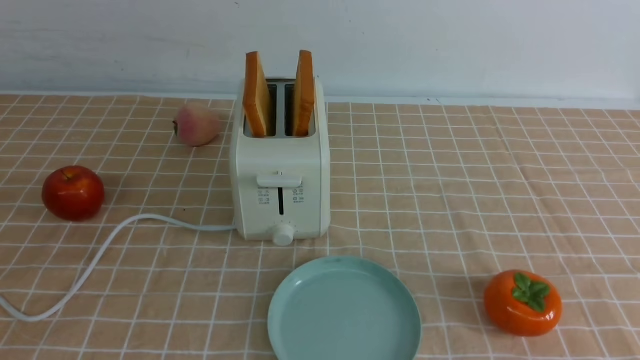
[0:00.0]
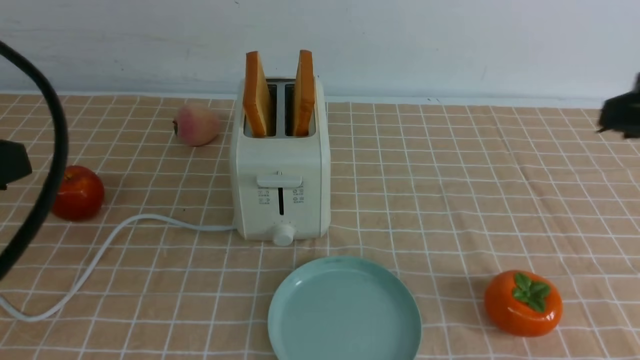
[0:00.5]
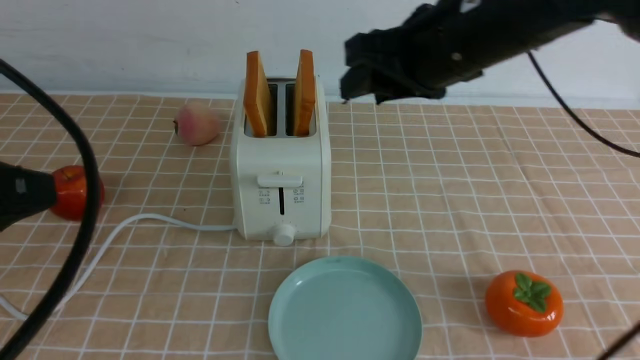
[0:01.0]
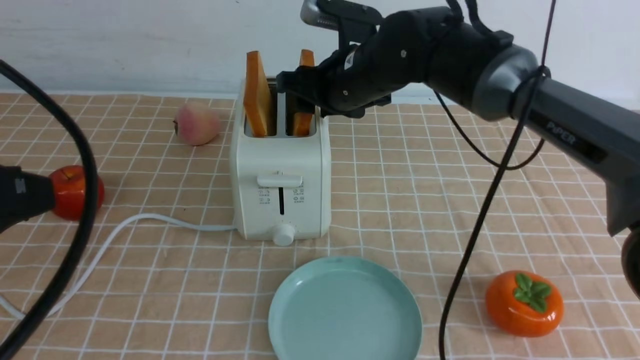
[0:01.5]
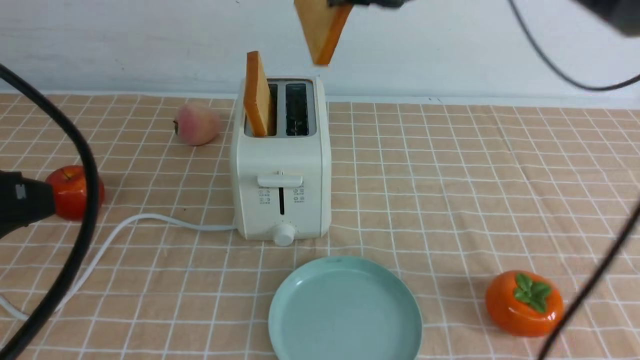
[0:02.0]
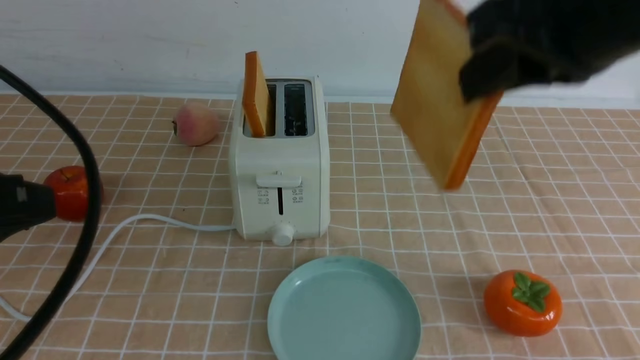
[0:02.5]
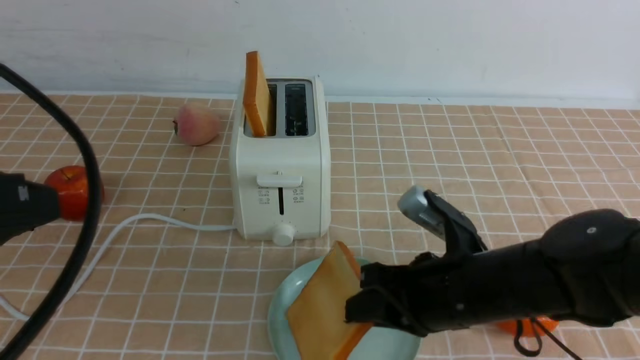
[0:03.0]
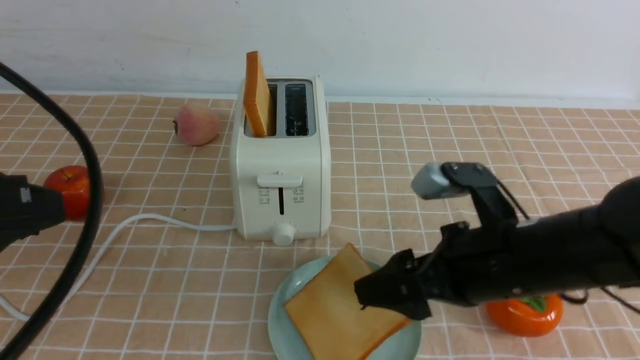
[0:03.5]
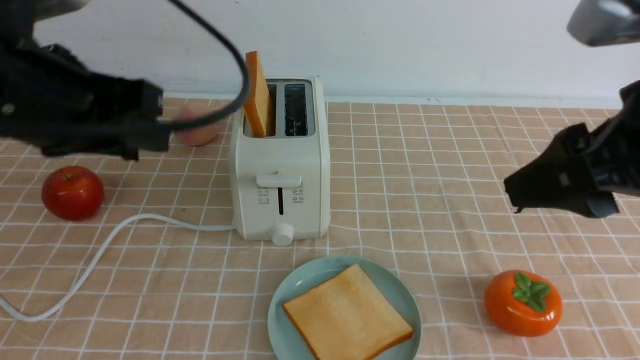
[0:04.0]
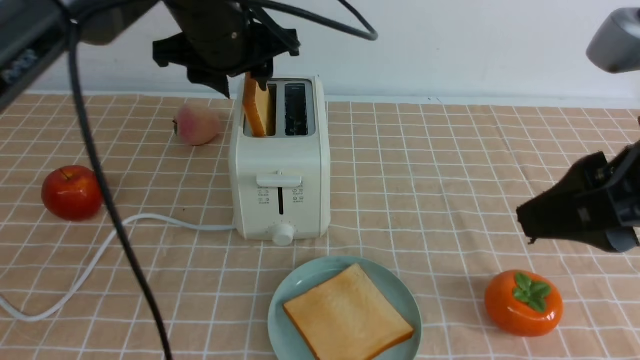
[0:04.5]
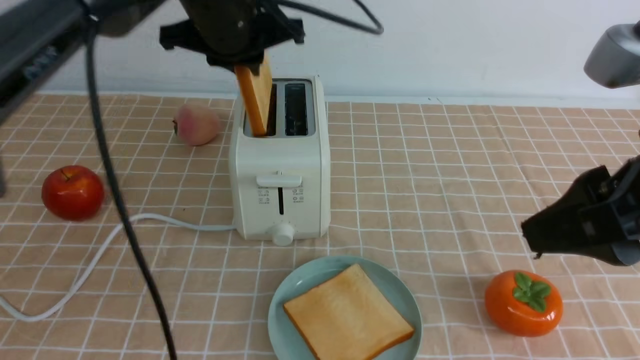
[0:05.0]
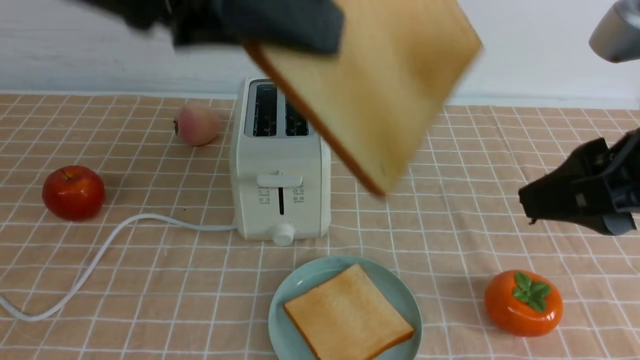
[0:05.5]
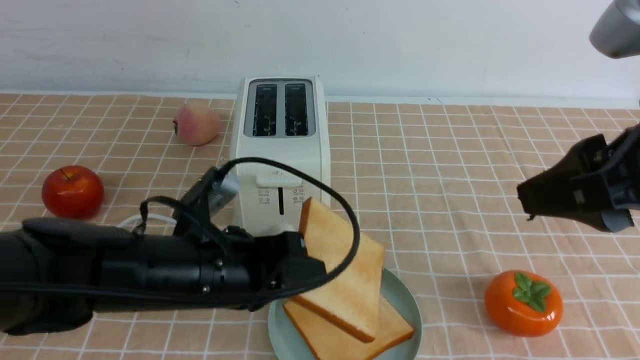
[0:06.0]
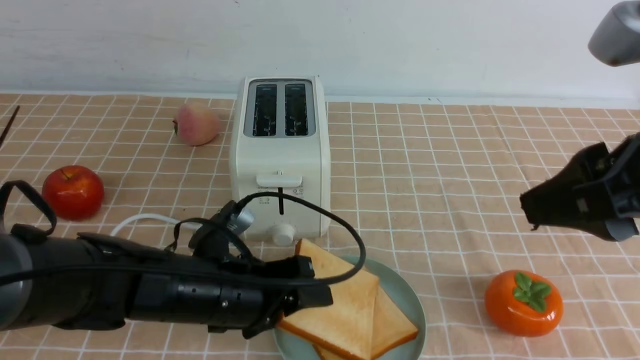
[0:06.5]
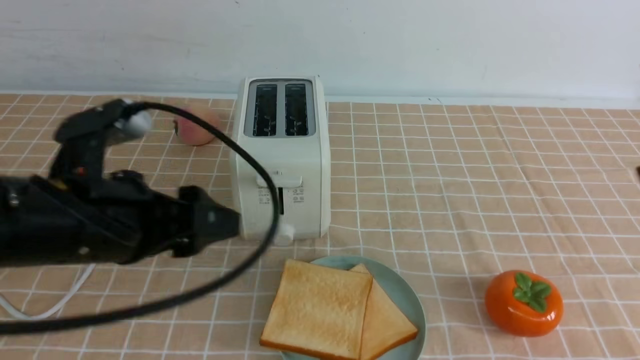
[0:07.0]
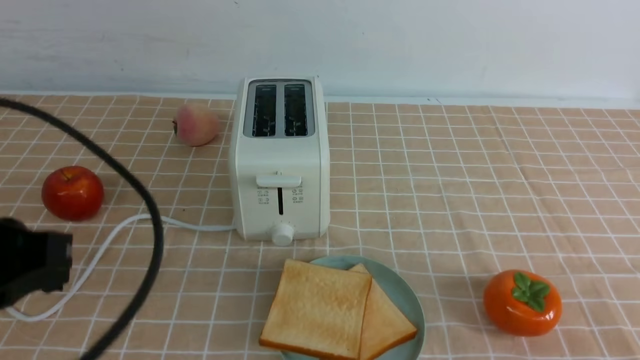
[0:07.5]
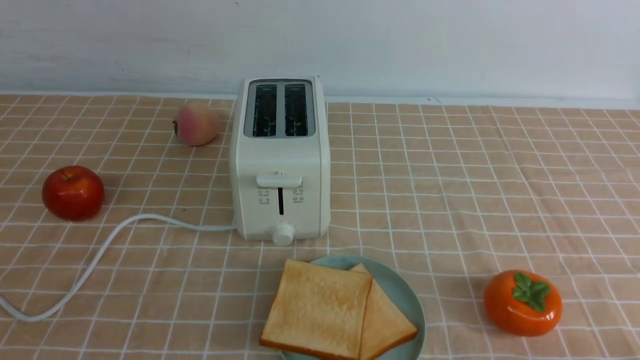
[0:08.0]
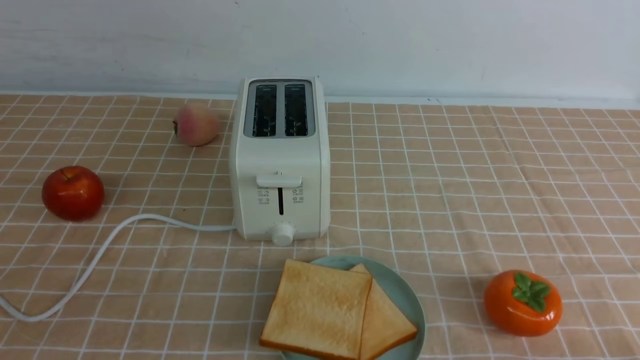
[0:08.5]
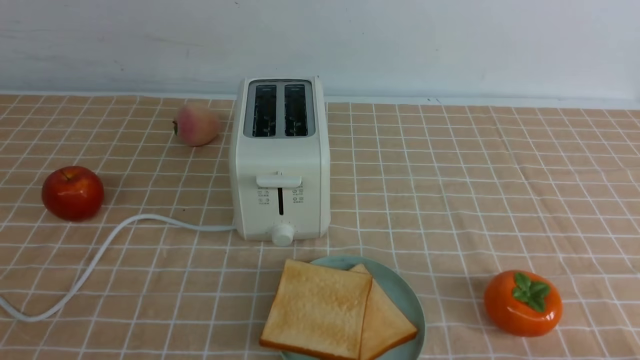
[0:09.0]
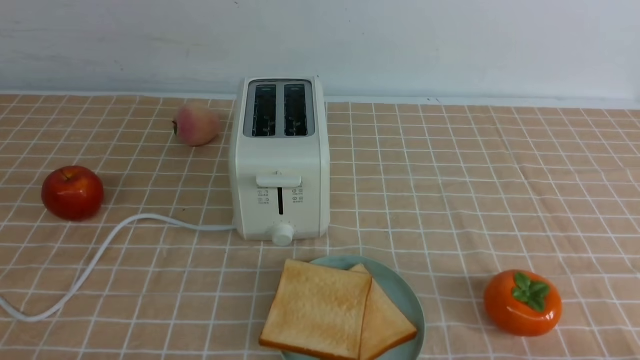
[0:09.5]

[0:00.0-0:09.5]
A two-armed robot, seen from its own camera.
Task of the whole recording: take toasted bread from bread machine on light coffee tablecloth place on plate.
Step, 0:02.0 to 0:03.5: use the right arm to put a slice of bread into the plate.
Step, 0:04.0 to 0:04.5: use the left arm to take out a slice of bread.
Step, 0:05.5 to 0:06.5: use the left arm to put a slice of bread into the empty plate.
0:00.0 to 0:02.0: The left gripper travels forward by approximately 5 cm. The right gripper goes roughly 35 cm forward and to the left.
0:02.0 to 0:04.0: The right gripper is displaced backward and to the right by some 20 cm, travels downward and back again, about 25 cm each way, and opens up; the left gripper shifts about 10 cm forward.
0:04.0 to 0:05.5: The left gripper is displaced to the right by about 10 cm, travels forward and back again, approximately 15 cm each way, and closes.
0:05.5 to 0:07.5: The left gripper moves to the left, downward and backward, some 20 cm, and opens, then closes again, while the right gripper moves downward, to the right and backward, about 20 cm, and closes.
0:07.5 to 0:09.5: The left gripper moves downward and backward, roughly 15 cm.

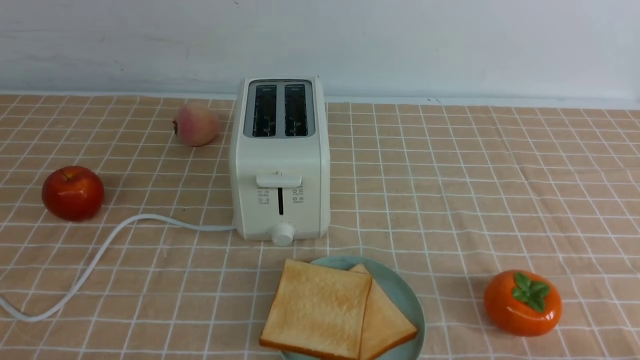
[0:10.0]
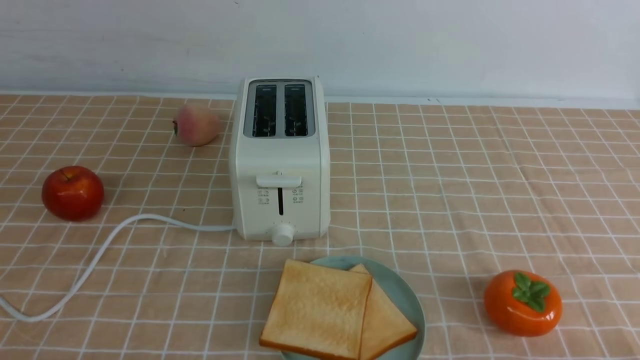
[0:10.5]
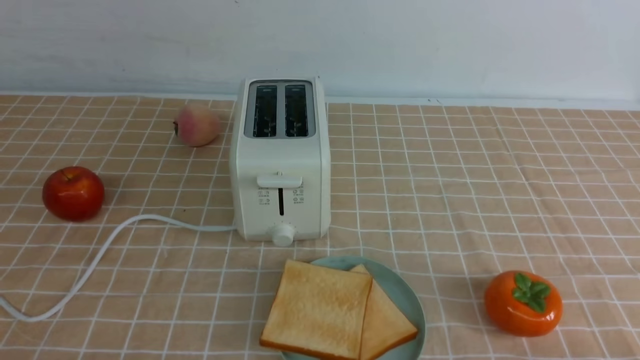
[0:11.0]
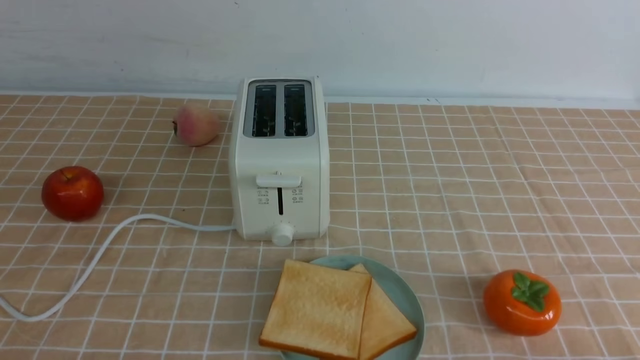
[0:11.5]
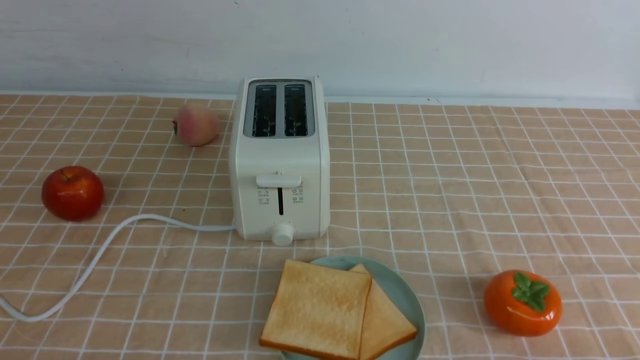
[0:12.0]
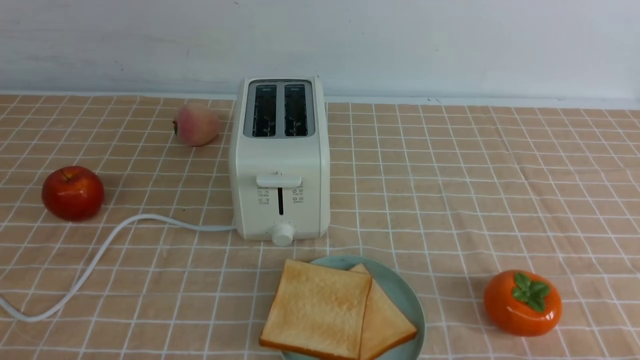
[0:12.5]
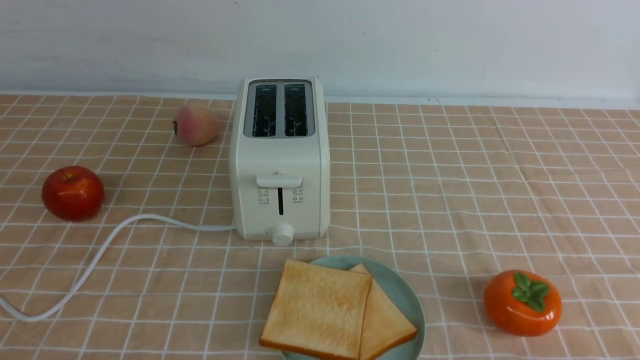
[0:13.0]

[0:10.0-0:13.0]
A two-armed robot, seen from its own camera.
Task of the whole recording: take toasted bread from bread machine on light coffee tablecloth place on plate.
0:11.5 to 0:13.0: Neither gripper changes place.

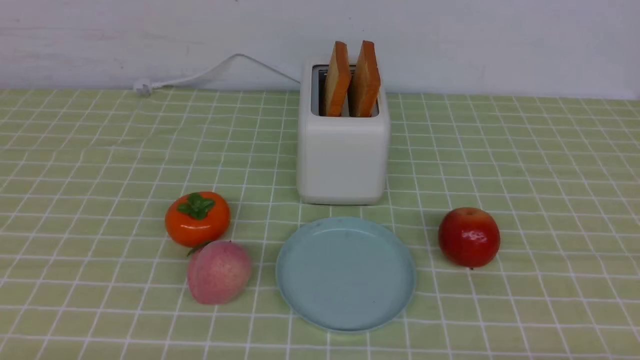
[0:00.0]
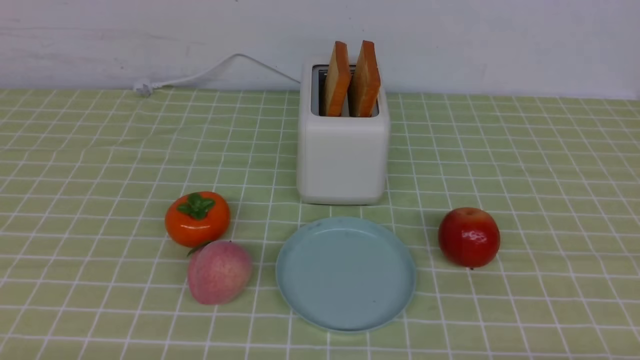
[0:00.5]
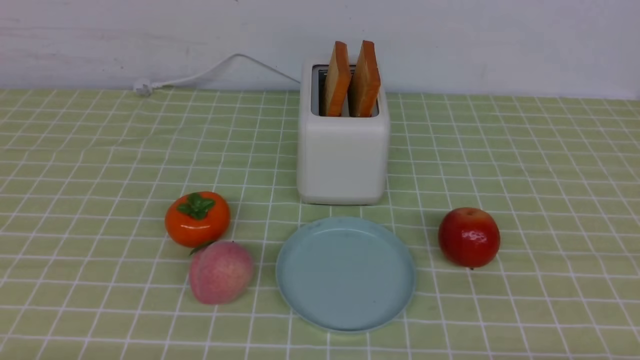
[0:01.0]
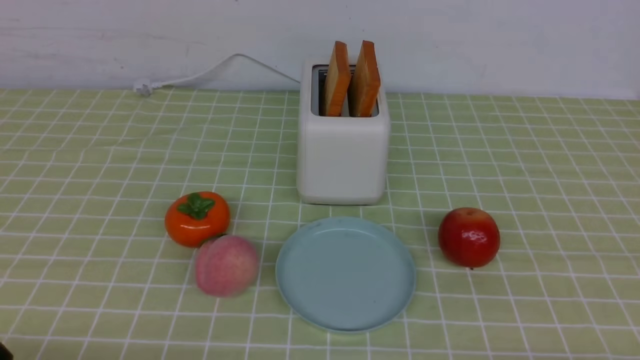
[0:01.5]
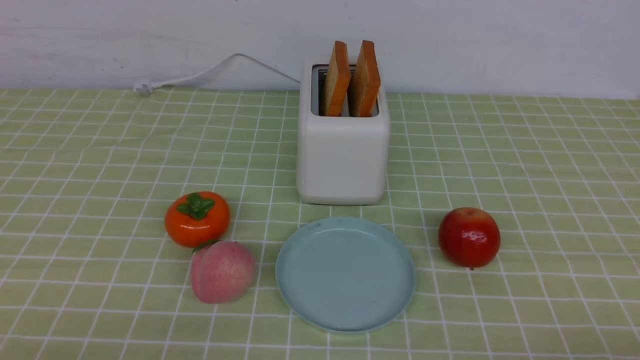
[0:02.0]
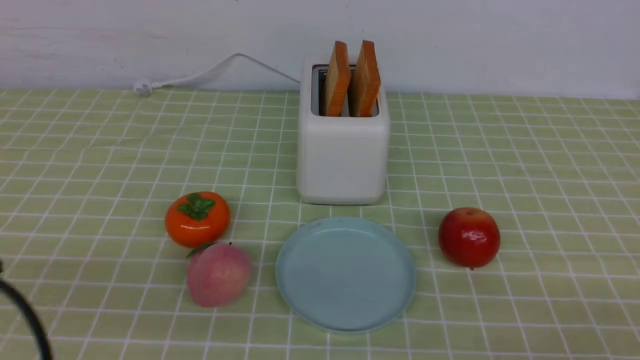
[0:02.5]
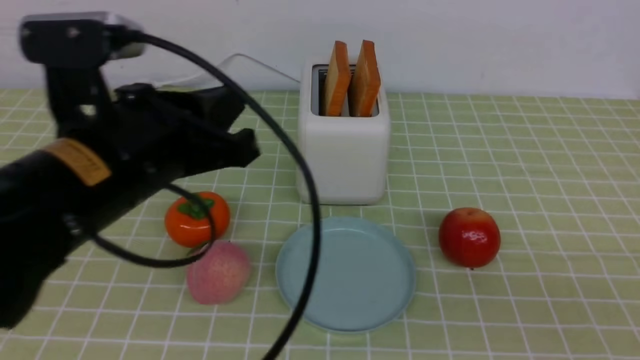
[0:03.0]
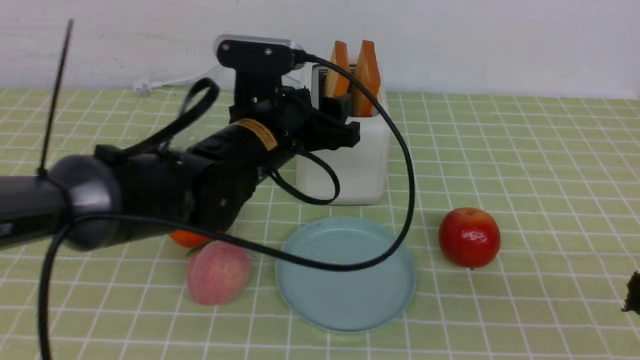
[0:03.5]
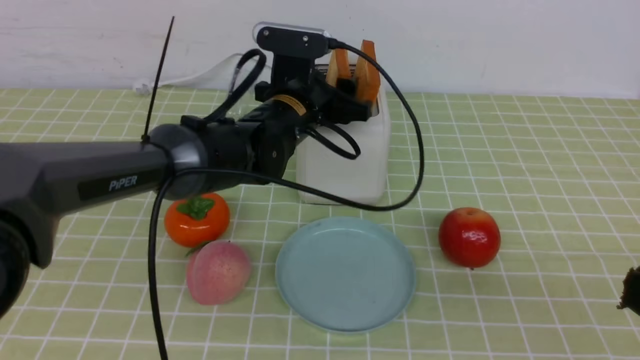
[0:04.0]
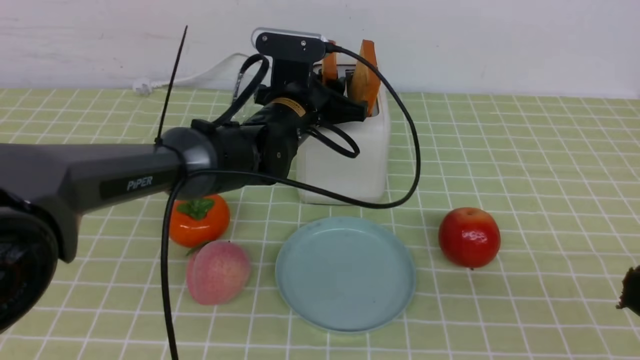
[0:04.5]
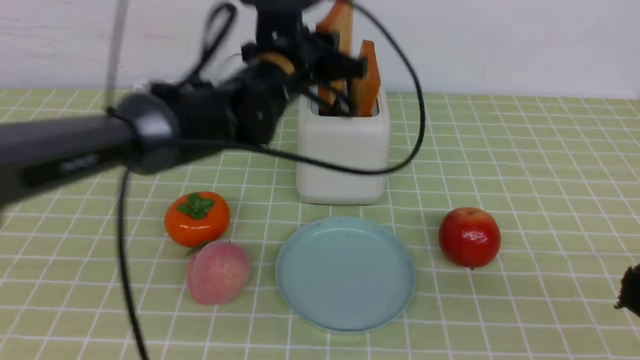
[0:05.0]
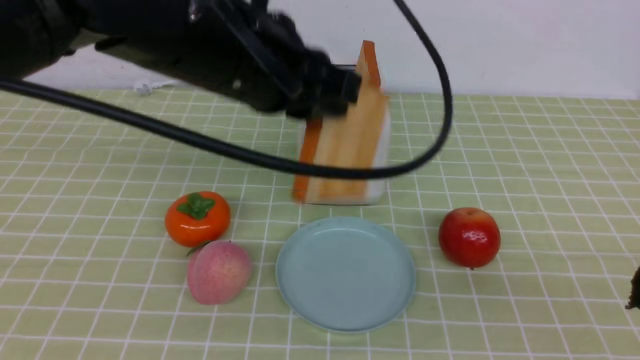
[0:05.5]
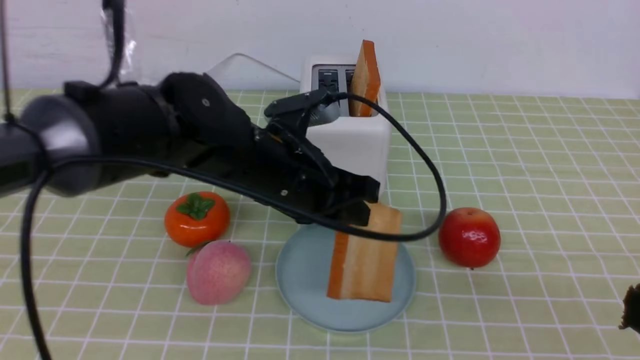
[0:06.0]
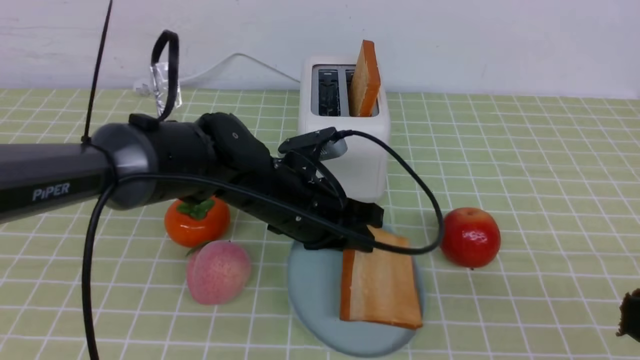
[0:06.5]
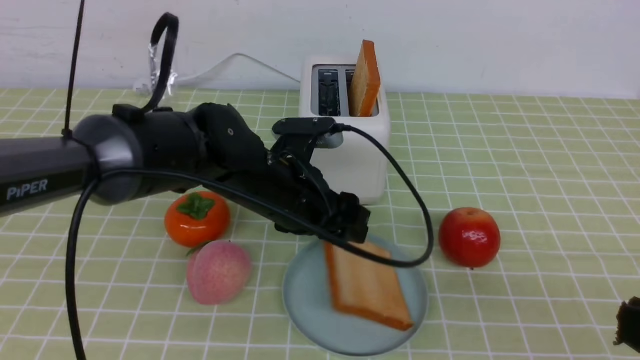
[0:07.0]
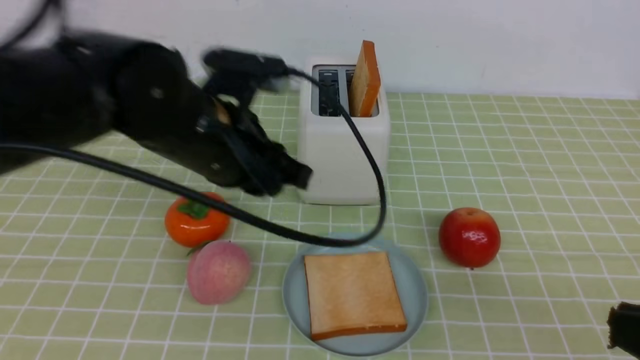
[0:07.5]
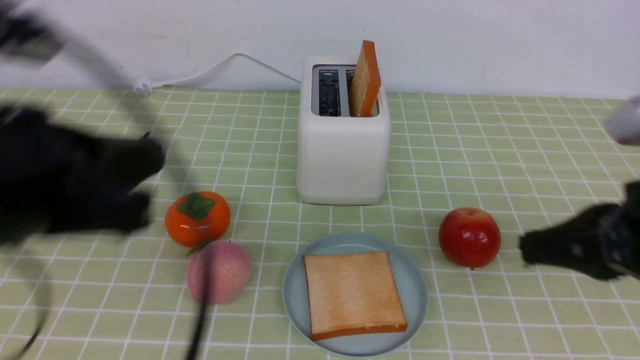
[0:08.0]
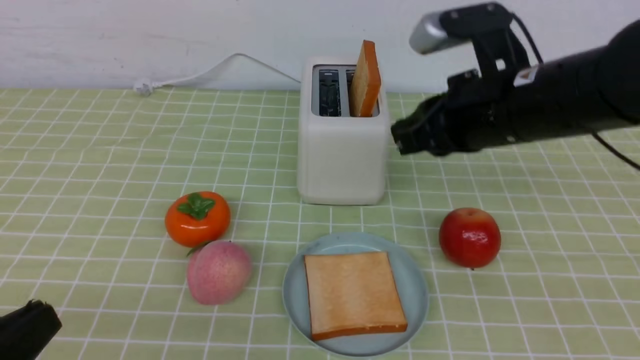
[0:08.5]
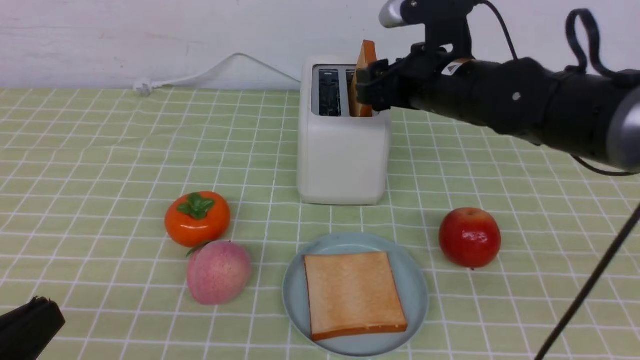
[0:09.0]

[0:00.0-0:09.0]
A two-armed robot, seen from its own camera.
Task of the whole recording: take toasted bread from bread machine on green coffee tablecloth place on plate.
Step, 0:00.0 to 0:05.0: use the left arm to take out a slice of bread.
Step, 0:05.5 to 0:07.0: use the left arm to put a slice of bread into the empty plate.
0:02.0 to 0:04.5: The left gripper shifts approximately 40 cm forward and to the right, and closes, then reopens; the right gripper shifts some 15 cm upward, and closes.
0:04.5 to 0:07.0: The left gripper is displaced backward by approximately 10 cm, moves about 15 cm upward and comes back, and closes, then reopens.
0:07.0 to 0:09.0: The left gripper is displaced backward and to the left by about 35 cm, and closes its fingers. Meanwhile the right gripper is displaced forward by about 35 cm, and opens its fingers.
